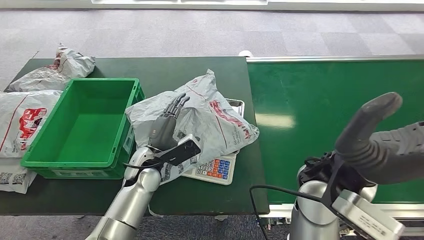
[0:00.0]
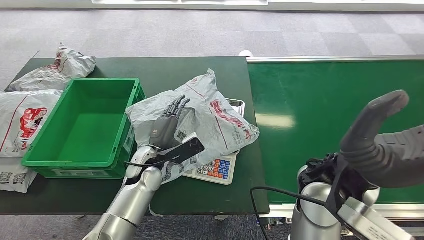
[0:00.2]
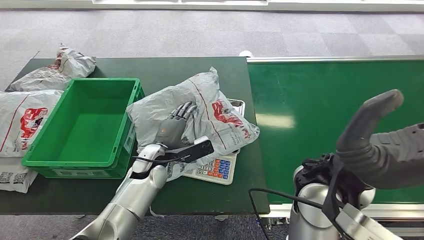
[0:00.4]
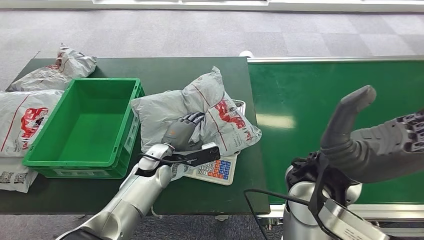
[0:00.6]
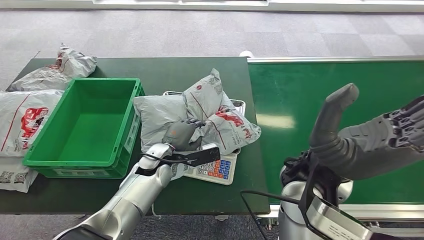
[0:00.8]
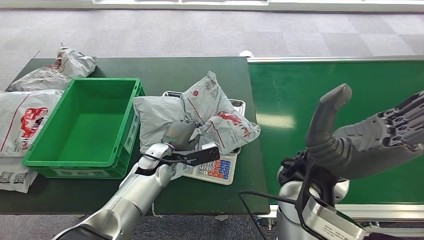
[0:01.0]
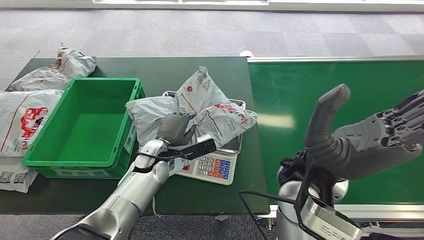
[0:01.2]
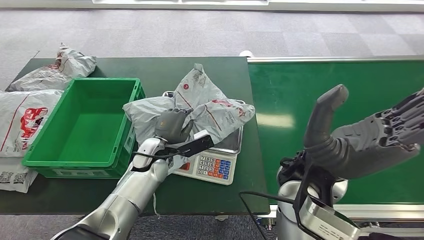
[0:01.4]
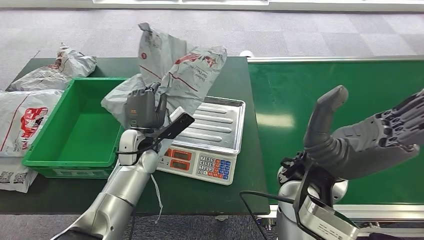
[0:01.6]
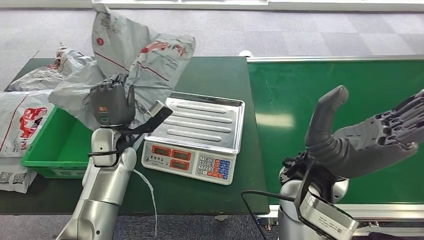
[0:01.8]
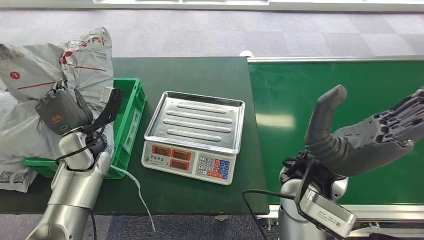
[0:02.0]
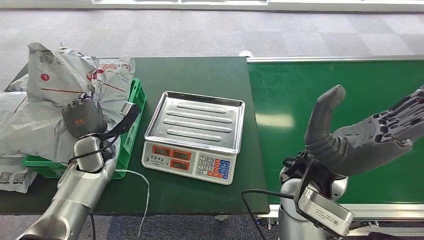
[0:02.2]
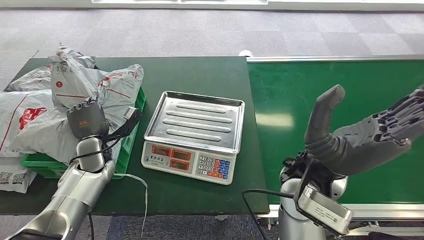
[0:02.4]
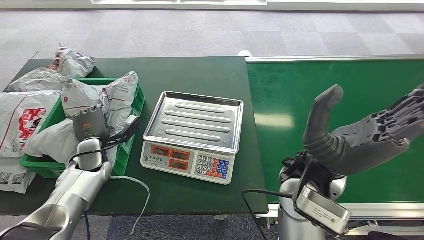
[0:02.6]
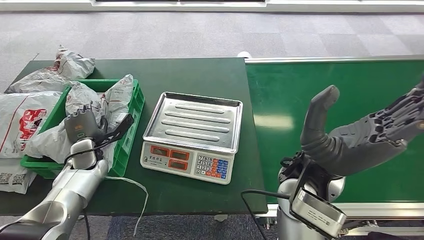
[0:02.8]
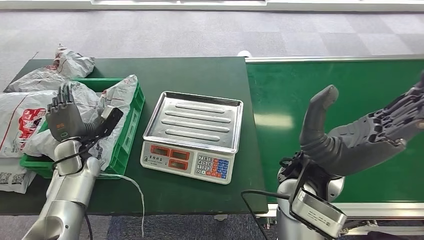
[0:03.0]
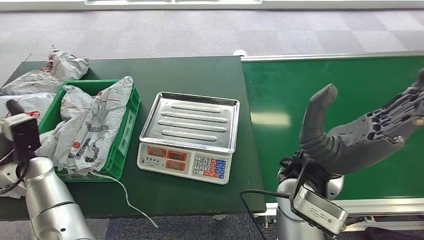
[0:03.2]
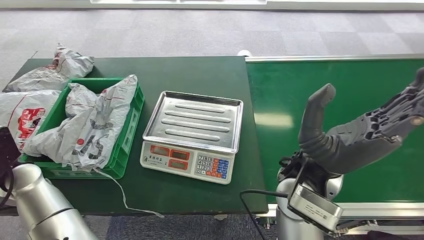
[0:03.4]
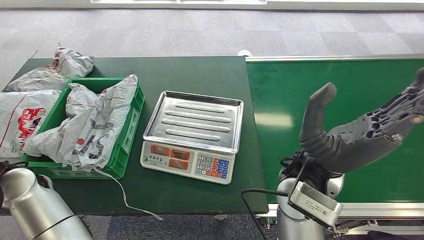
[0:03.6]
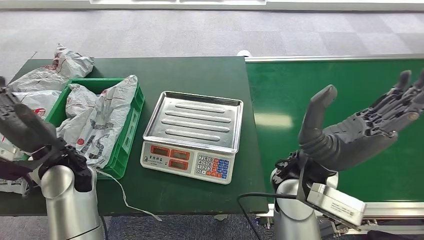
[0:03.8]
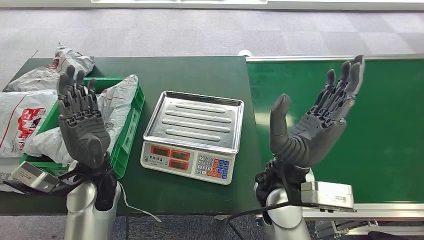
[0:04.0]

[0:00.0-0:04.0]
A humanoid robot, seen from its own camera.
Step, 0:00.0 to 0:02.0: Pick up the package from the inbound machine.
Step, 0:02.2 to 0:04.0: Place the package into the parcel locker.
